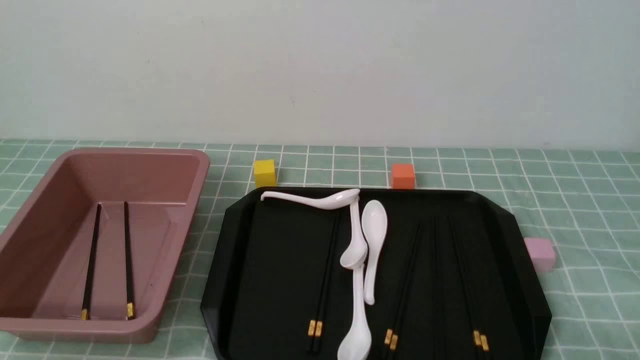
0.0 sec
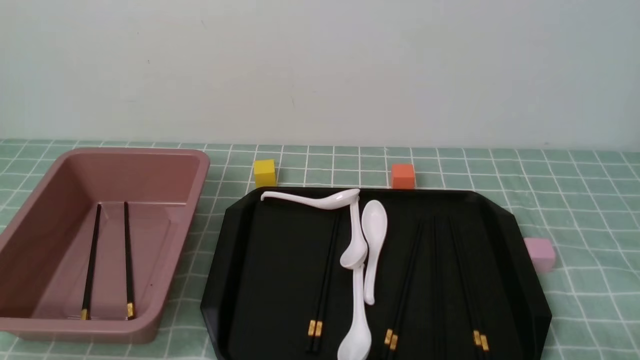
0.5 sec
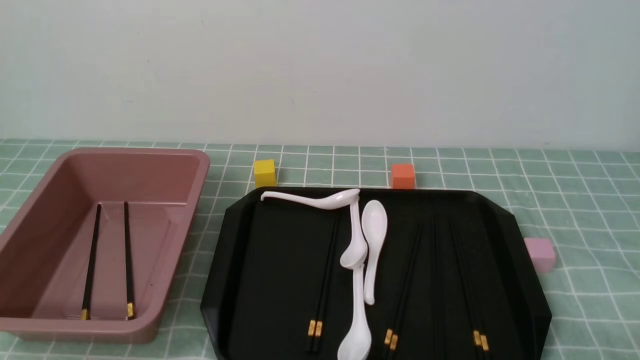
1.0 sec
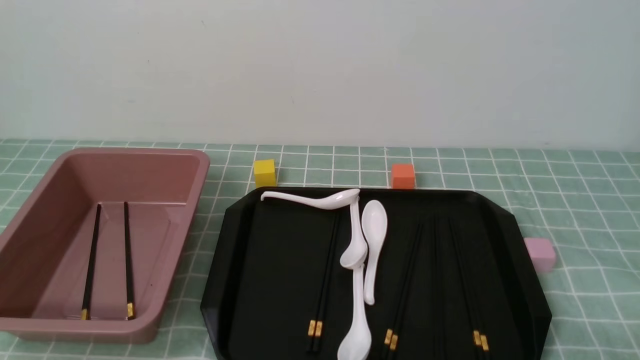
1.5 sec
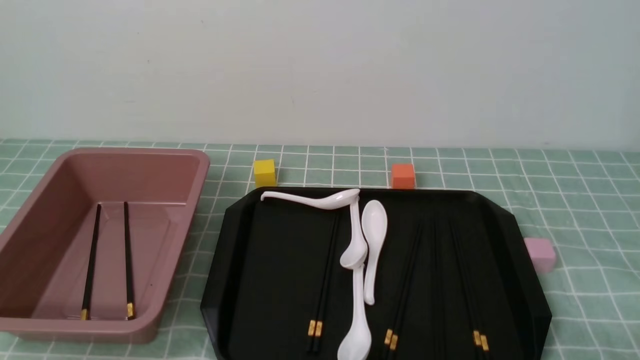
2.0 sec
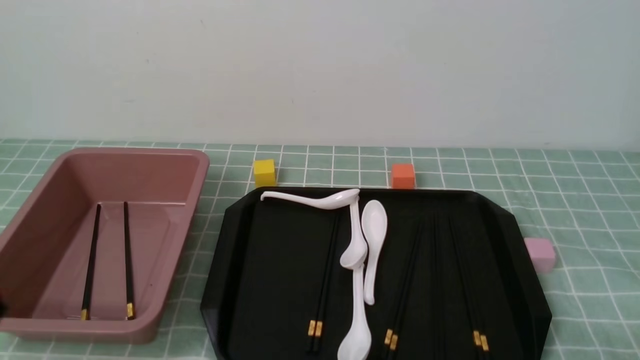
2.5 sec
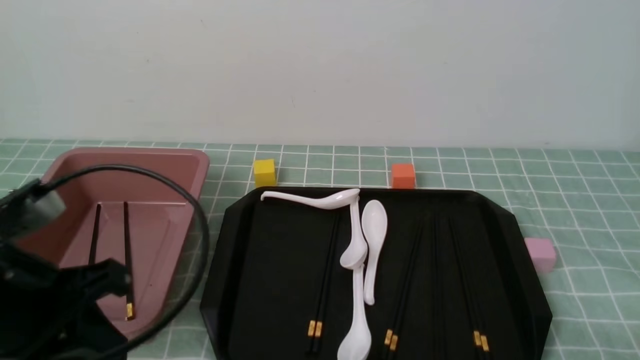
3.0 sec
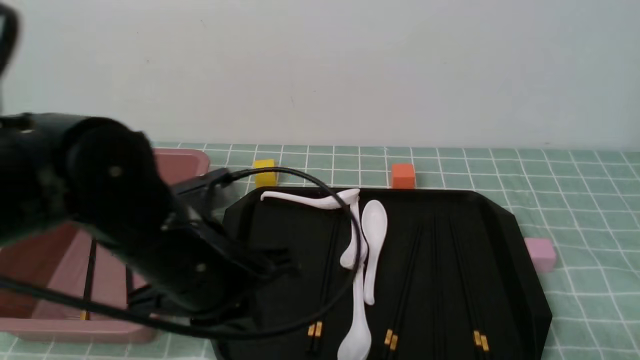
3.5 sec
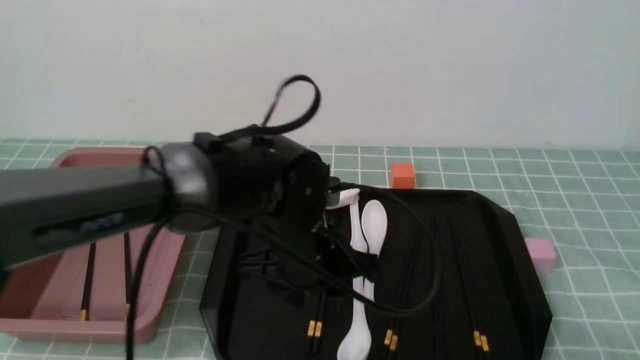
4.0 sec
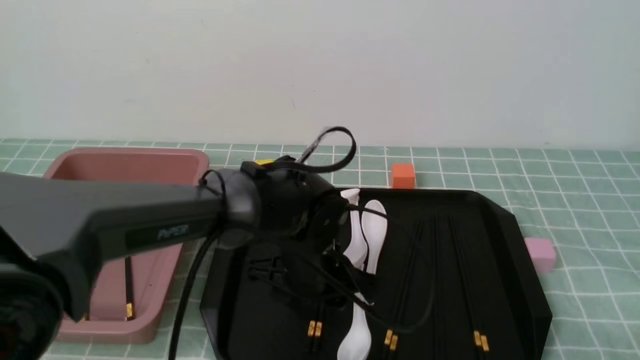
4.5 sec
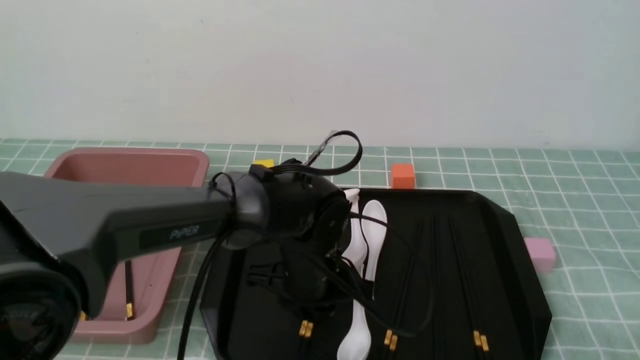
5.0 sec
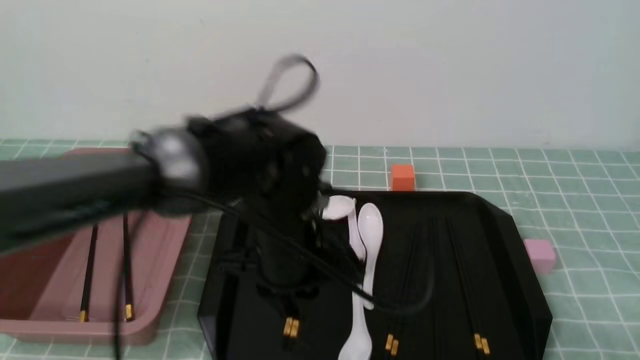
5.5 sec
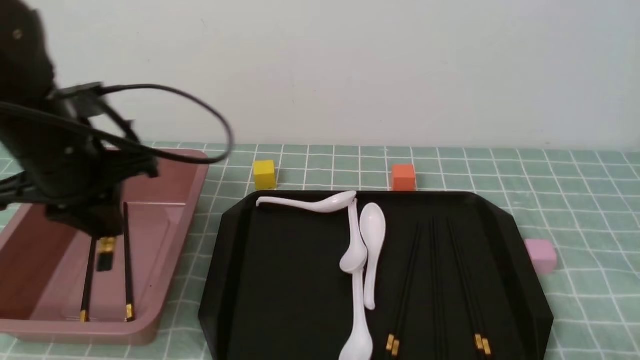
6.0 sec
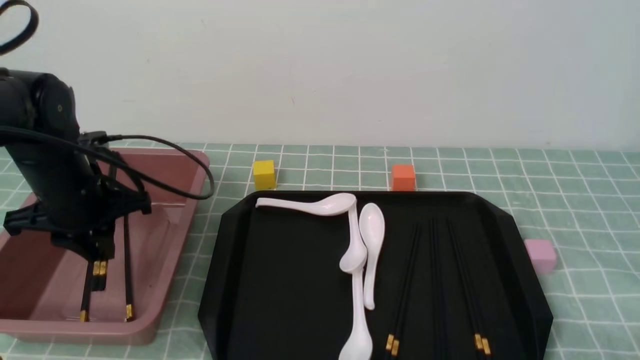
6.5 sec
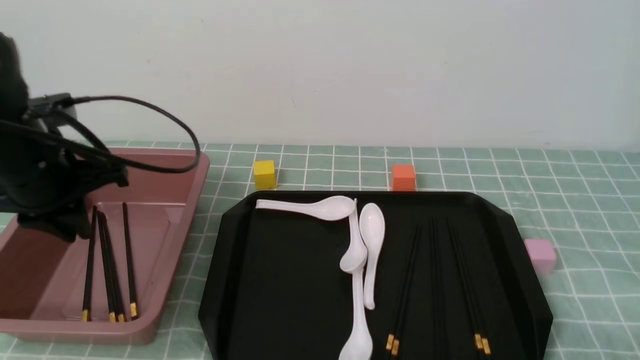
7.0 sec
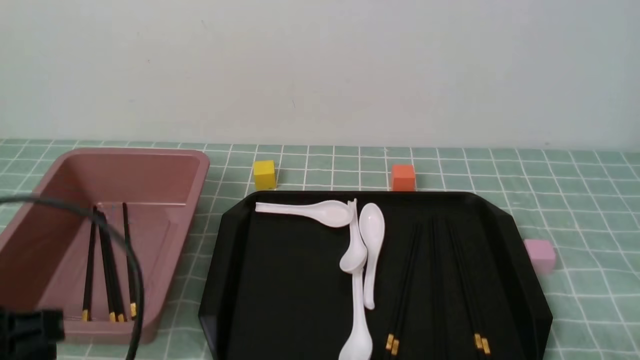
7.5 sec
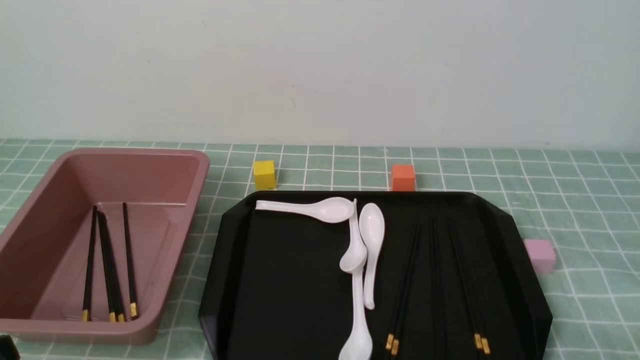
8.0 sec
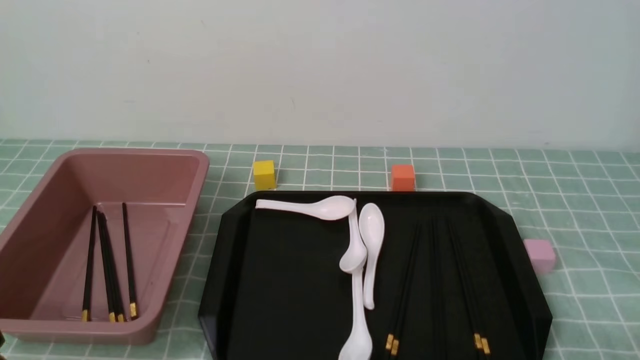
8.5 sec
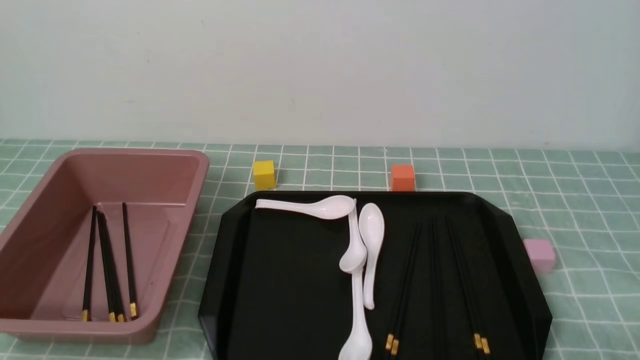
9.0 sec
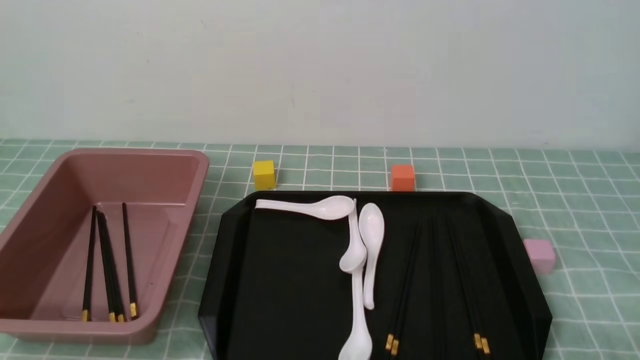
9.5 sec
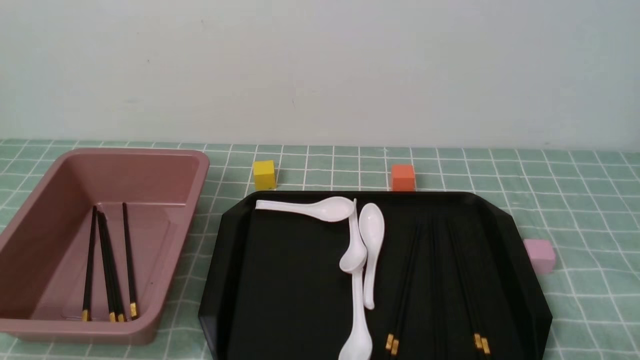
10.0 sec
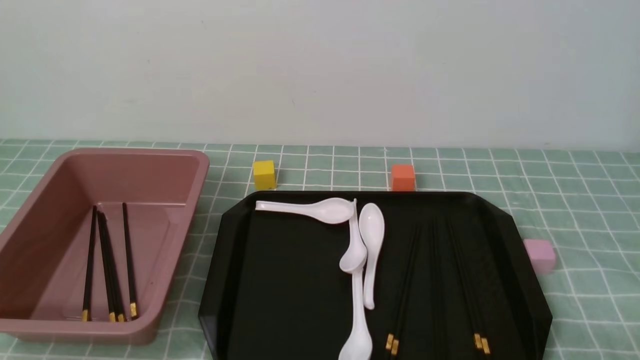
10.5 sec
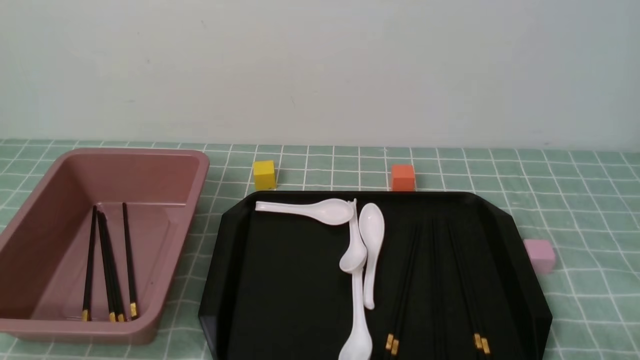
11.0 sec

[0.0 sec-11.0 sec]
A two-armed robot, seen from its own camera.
Step, 0.0 sec to 5.5 sec: use the left arm to grab a pair of chopsticks.
Step, 6.0 sec to 7.0 sec: use the left arm to put the chopsticks into the lunch box.
2.0 sec to 3.5 sec: The left gripper travels forward, to the right and upward by roughly 25 cm.
3.5 sec to 5.5 sec: The left gripper heads forward and to the right, covering approximately 10 cm, goes downward and returns, approximately 10 cm each way, and opens and closes again.
5.5 sec to 7.5 sec: The left gripper is displaced to the left and backward by approximately 25 cm.
7.5 sec to 9.0 sec: The left gripper is displaced downward and backward by approximately 10 cm.

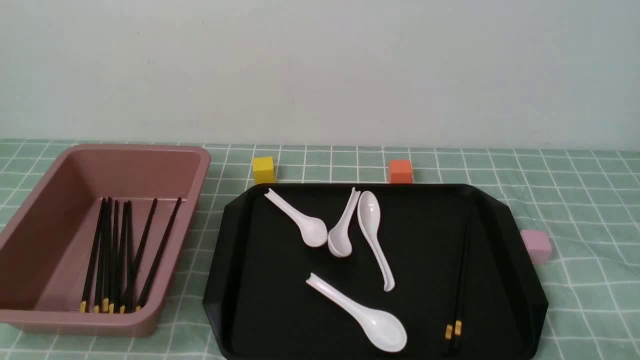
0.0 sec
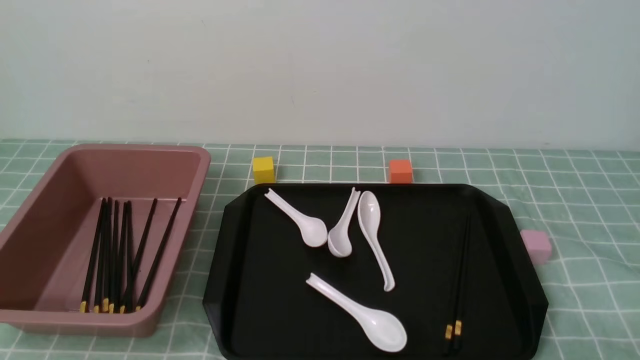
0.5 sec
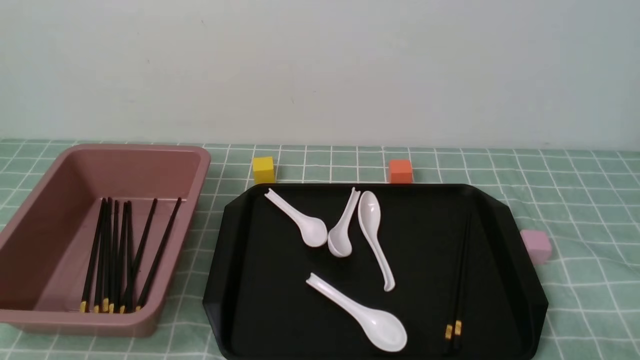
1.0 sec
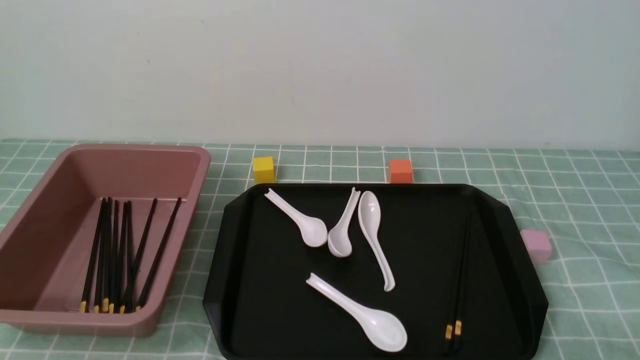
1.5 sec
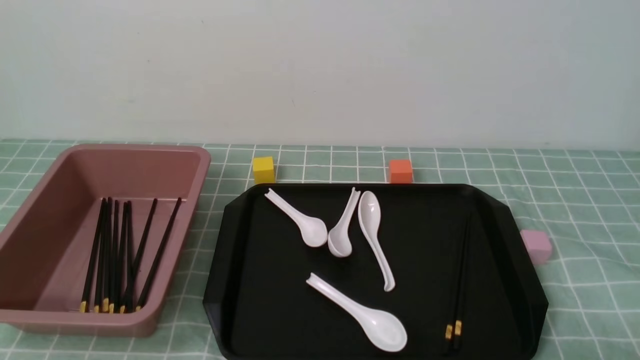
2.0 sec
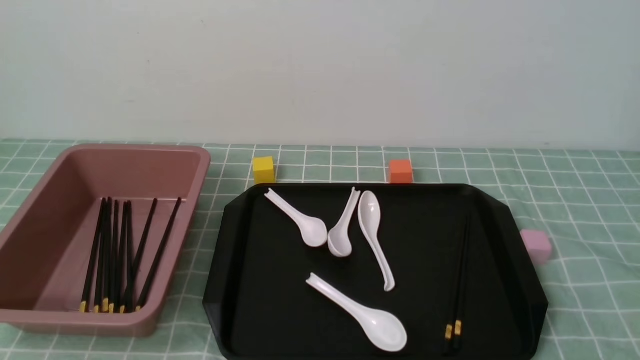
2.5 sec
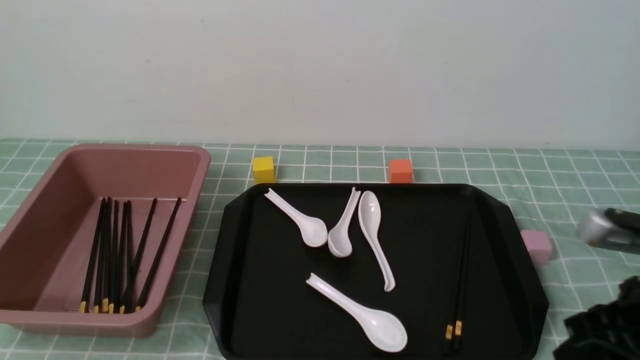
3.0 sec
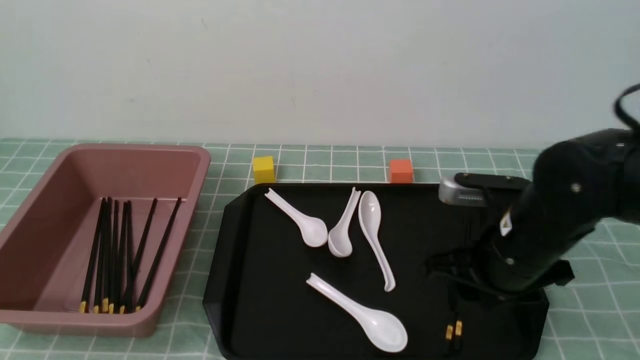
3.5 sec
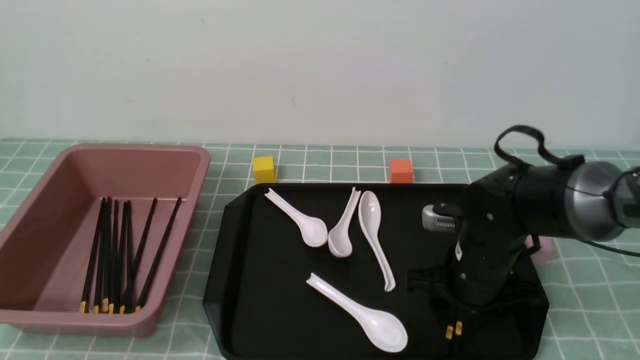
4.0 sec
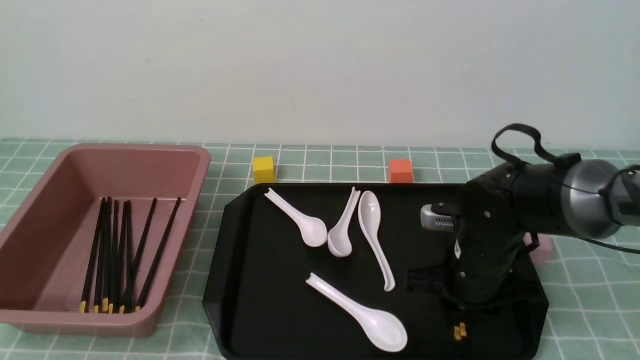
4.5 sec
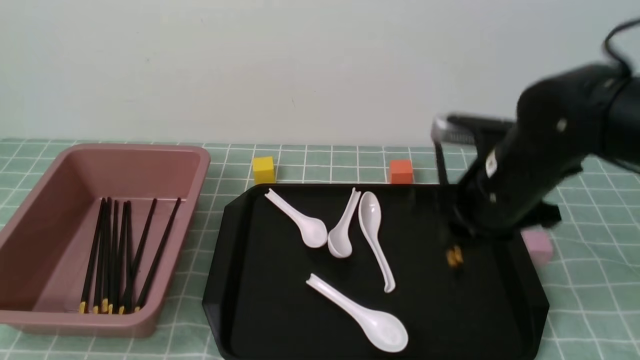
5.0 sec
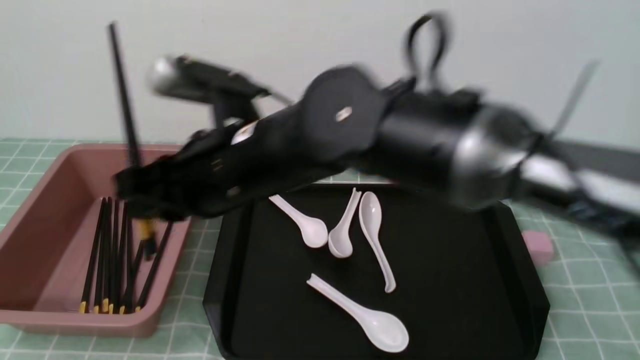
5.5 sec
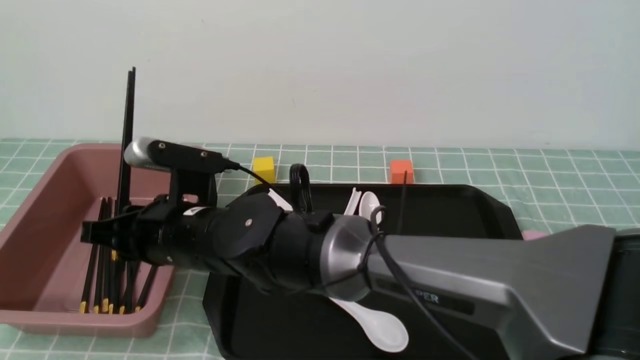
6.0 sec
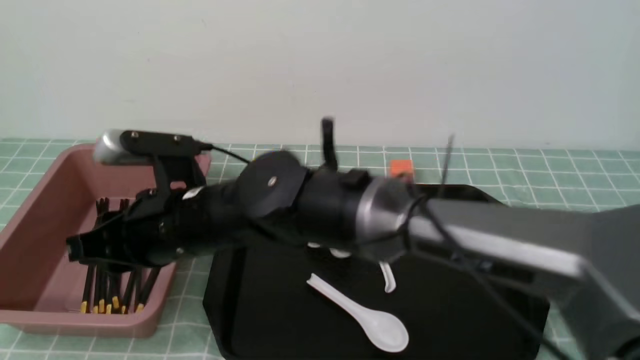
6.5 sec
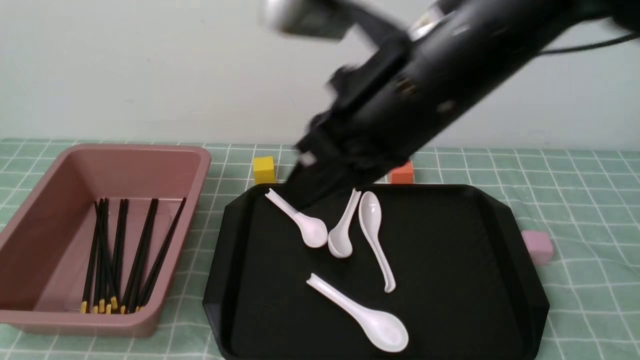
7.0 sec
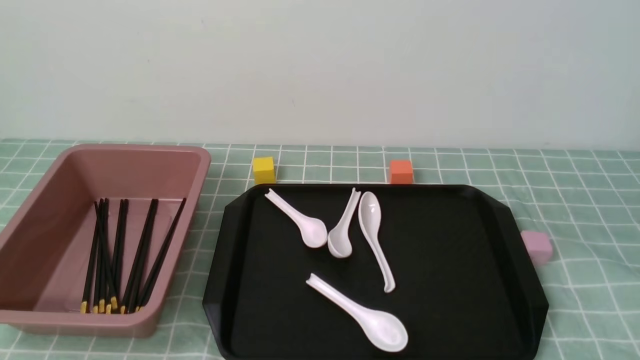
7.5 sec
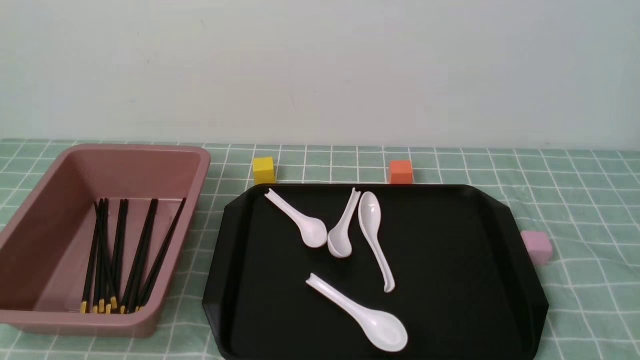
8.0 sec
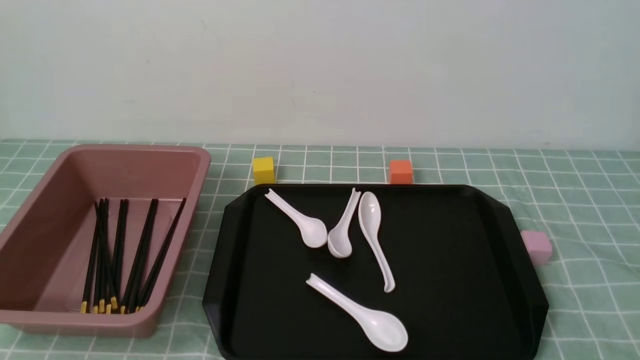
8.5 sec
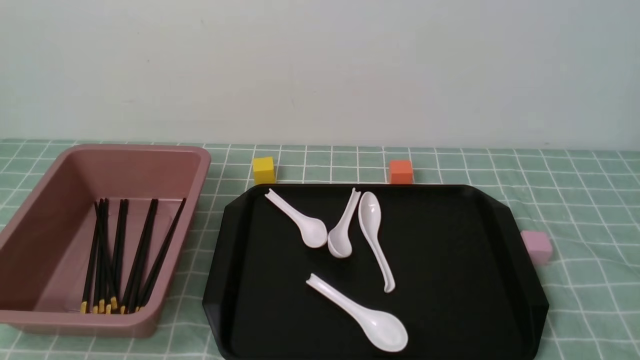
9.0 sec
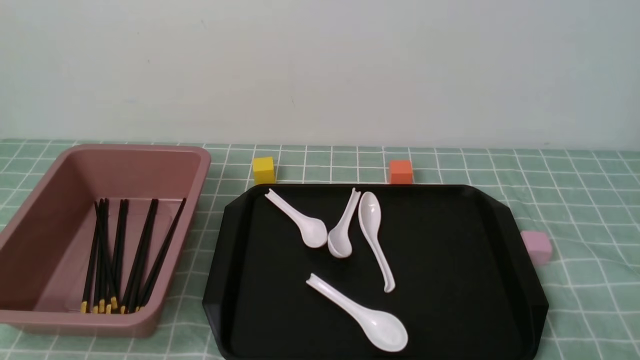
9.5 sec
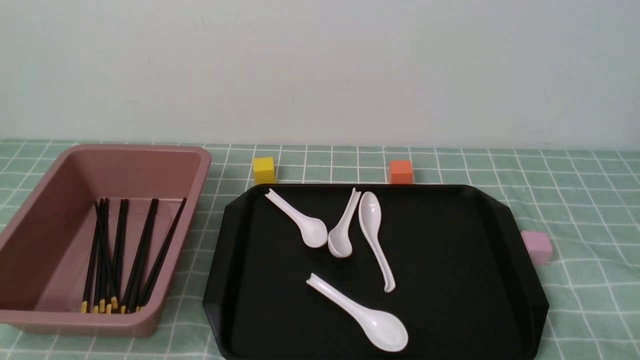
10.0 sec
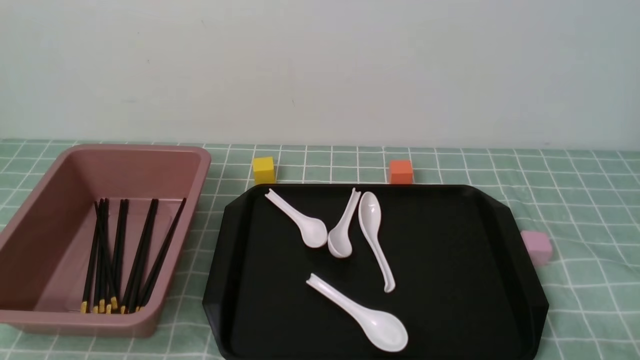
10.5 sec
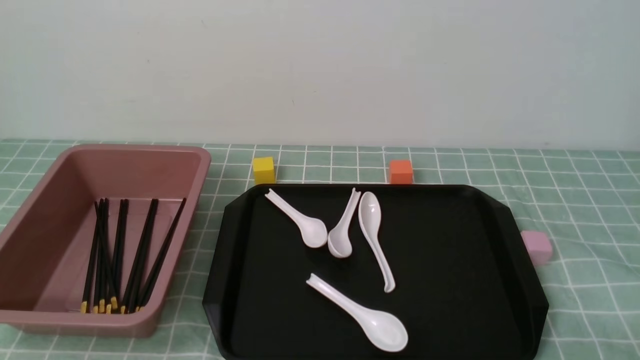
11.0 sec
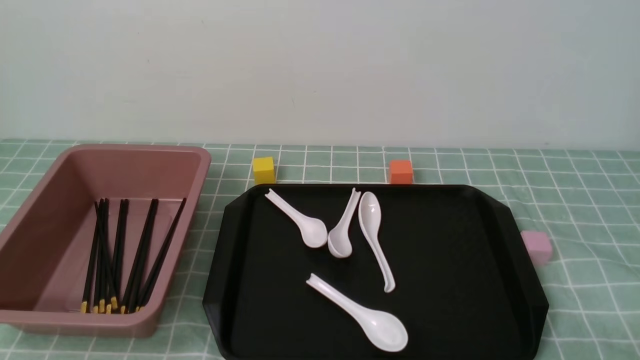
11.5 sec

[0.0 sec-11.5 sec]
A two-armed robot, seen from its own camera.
Step, 0.0 sec to 5.0 sec: use the right arm to grab a pair of chopsticks.
Step, 5.5 sec to 6.5 sec: use the right arm to put the chopsticks into the lunch box.
2.0 sec to 4.0 sec: The right gripper heads forward and to the left, covering some 30 cm, and opens its fingers.
4.0 sec to 6.0 sec: The right gripper moves to the left, roughly 30 cm, and closes its fingers.
6.0 sec to 7.5 sec: The right gripper travels to the right, backward and upward by roughly 50 cm, and closes its fingers.
7.5 sec to 9.5 sec: The right gripper heads downward, covering approximately 20 cm.
